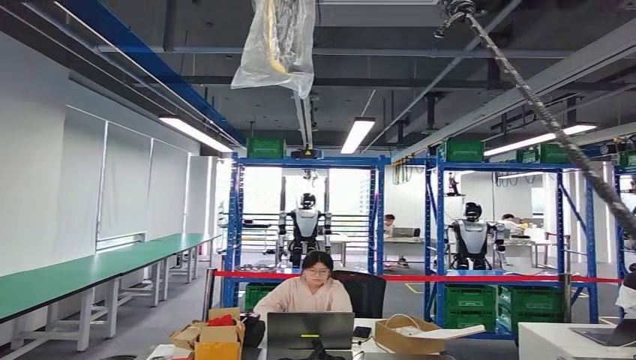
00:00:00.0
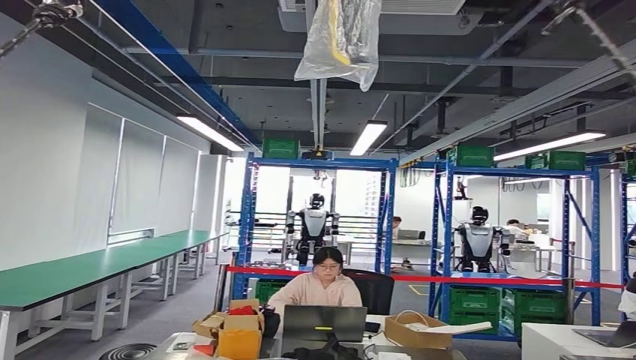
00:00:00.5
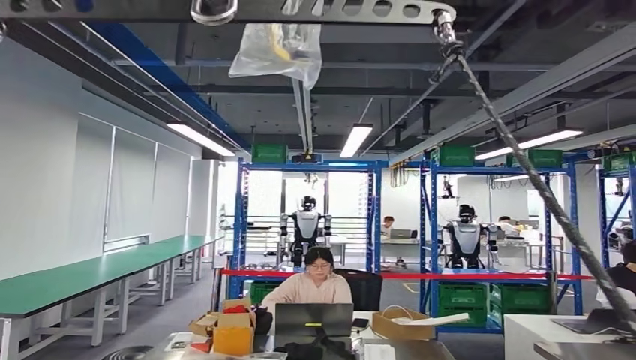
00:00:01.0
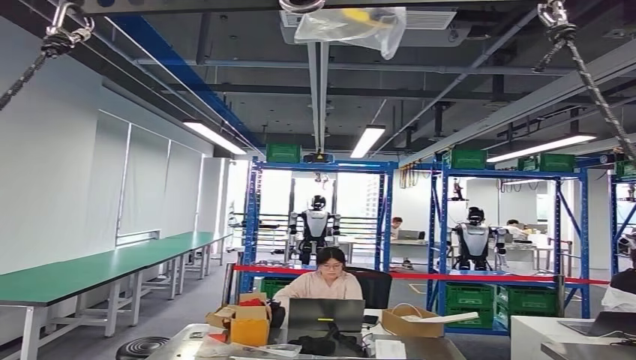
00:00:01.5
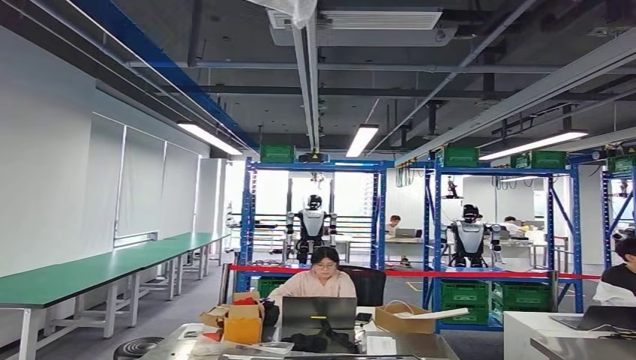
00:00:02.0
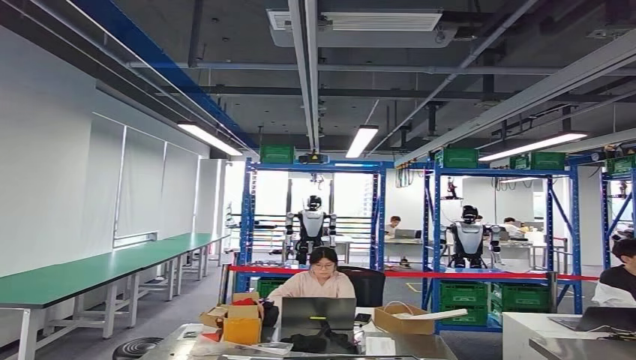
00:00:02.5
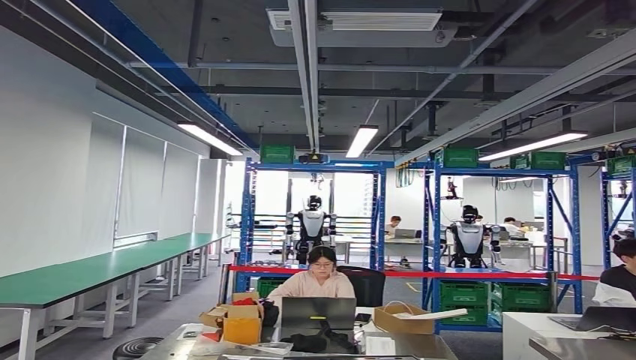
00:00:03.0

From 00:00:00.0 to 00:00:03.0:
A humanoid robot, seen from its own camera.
Step, from 00:00:00.0 to 00:00:03.0: Return to the initial position at the workbench.
